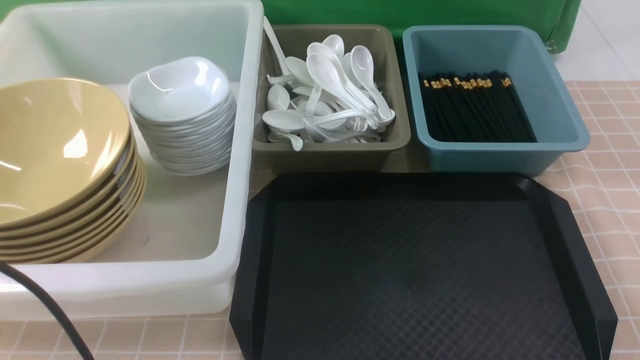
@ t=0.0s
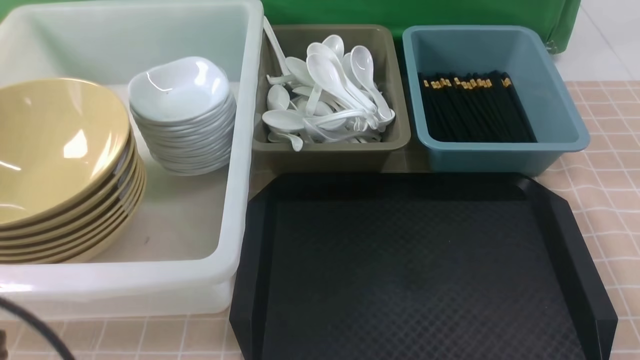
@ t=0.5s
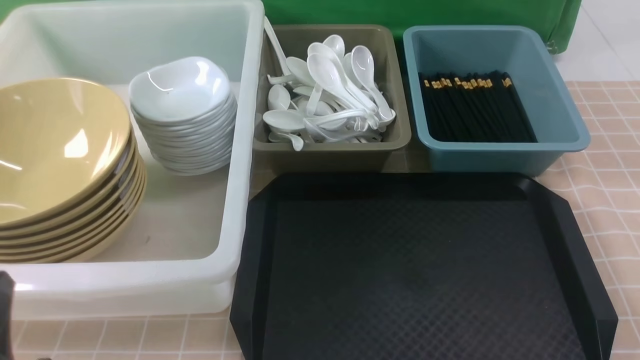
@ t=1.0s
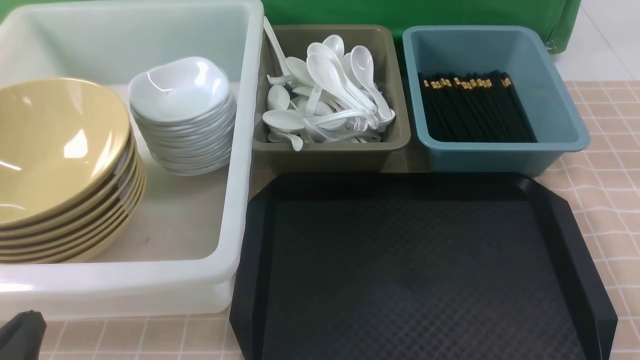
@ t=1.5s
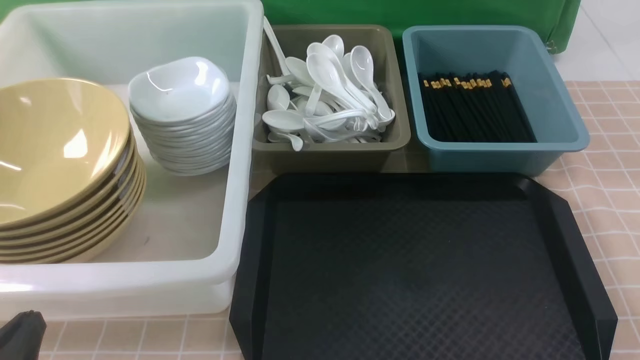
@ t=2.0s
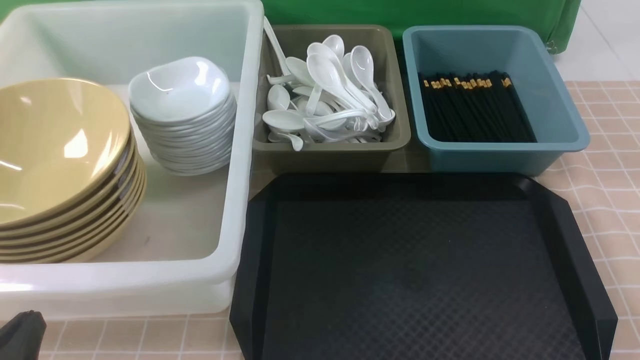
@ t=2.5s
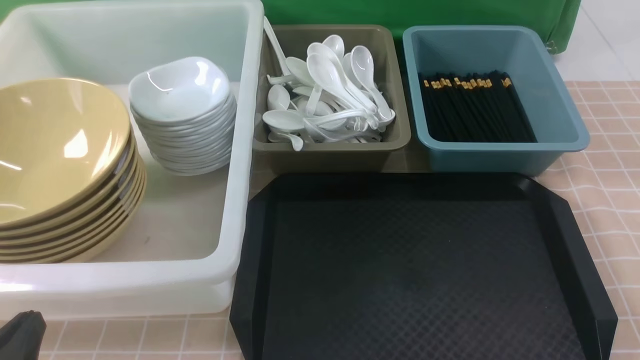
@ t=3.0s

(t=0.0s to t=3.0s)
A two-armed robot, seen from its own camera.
Task of the whole recording: on brown table put chopsticks spoon bowls plates into blue grey white boxes.
t=0.0s - t=1.5s: The left gripper travels downward by roughly 15 cm.
t=1.5s - t=3.0s: Neither gripper changes place.
